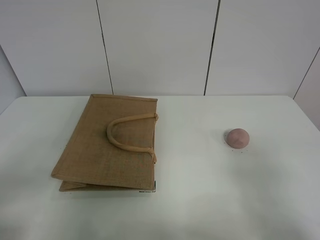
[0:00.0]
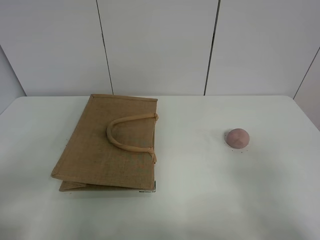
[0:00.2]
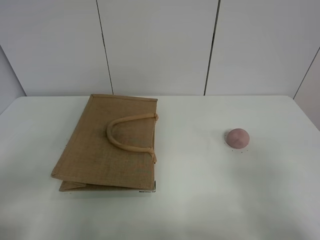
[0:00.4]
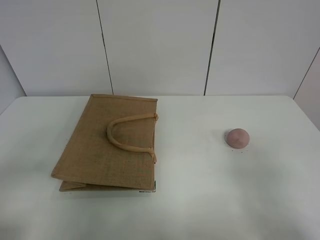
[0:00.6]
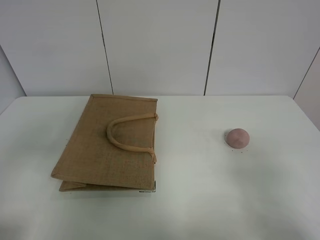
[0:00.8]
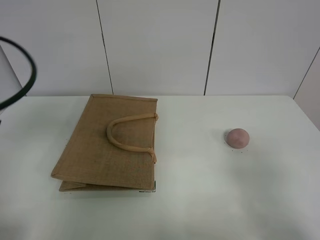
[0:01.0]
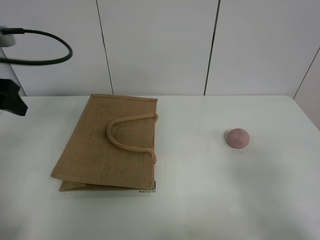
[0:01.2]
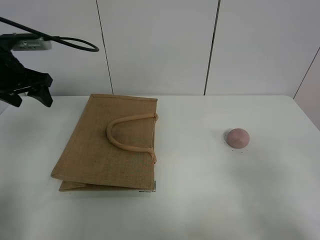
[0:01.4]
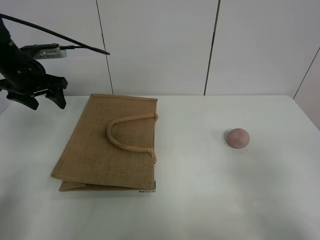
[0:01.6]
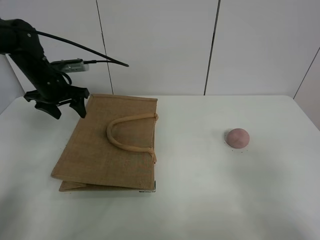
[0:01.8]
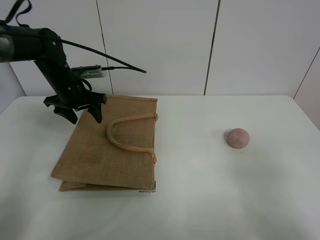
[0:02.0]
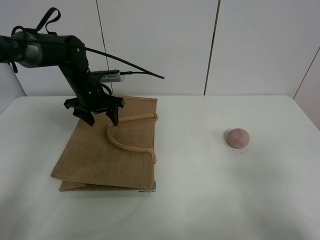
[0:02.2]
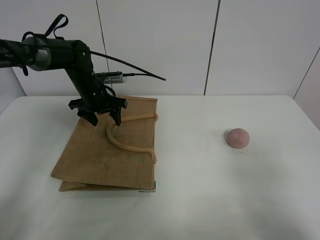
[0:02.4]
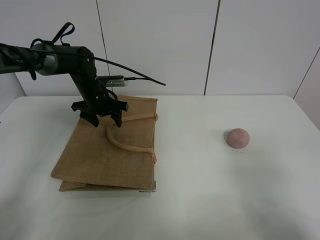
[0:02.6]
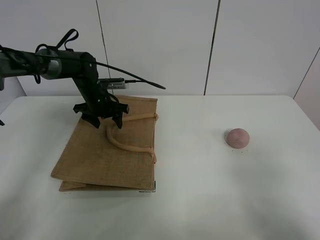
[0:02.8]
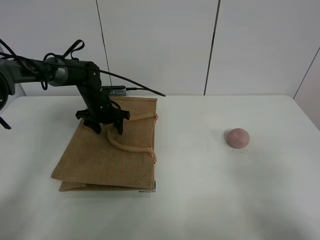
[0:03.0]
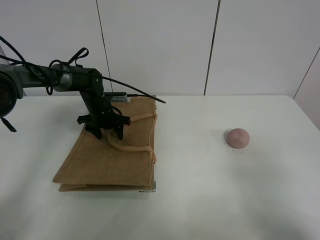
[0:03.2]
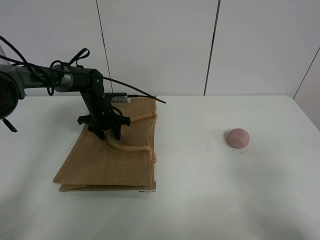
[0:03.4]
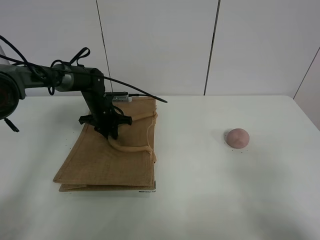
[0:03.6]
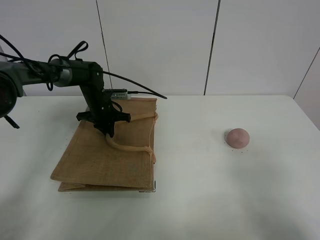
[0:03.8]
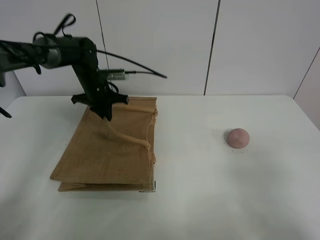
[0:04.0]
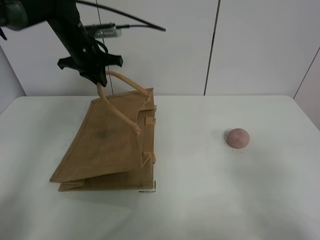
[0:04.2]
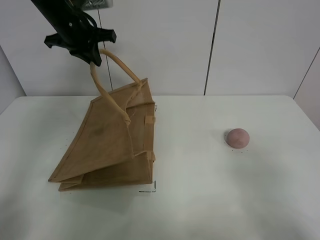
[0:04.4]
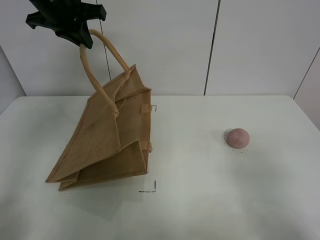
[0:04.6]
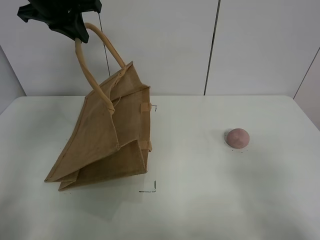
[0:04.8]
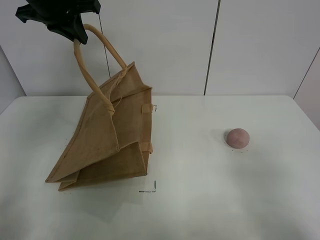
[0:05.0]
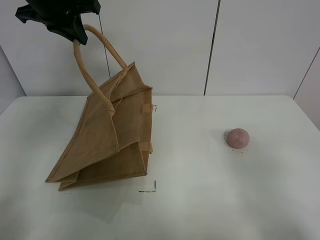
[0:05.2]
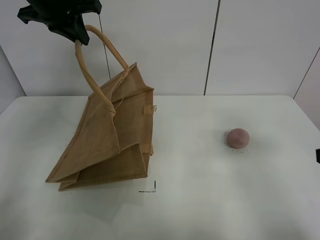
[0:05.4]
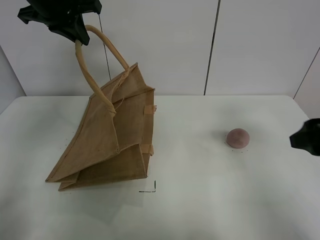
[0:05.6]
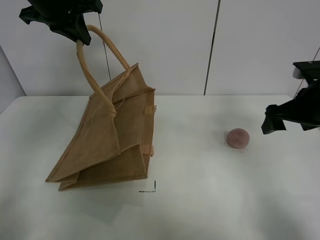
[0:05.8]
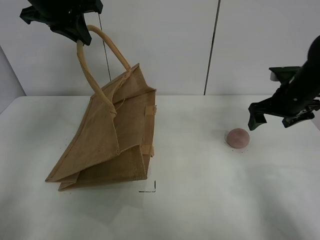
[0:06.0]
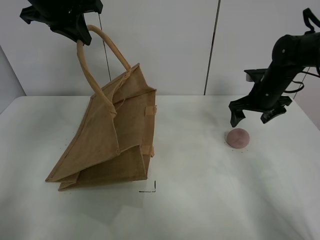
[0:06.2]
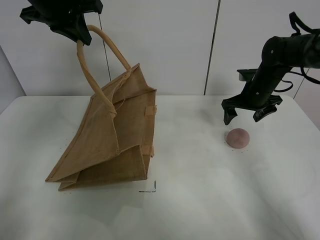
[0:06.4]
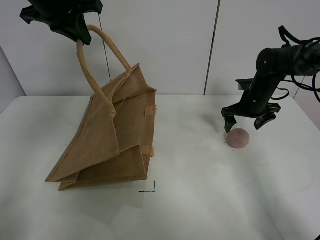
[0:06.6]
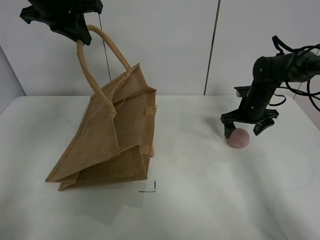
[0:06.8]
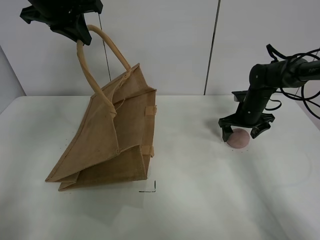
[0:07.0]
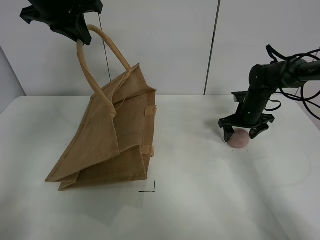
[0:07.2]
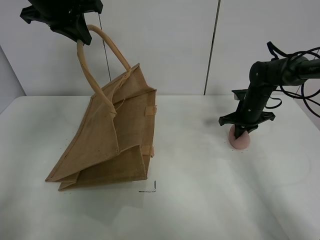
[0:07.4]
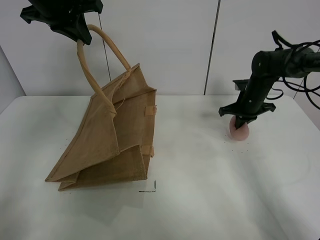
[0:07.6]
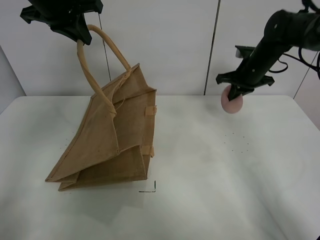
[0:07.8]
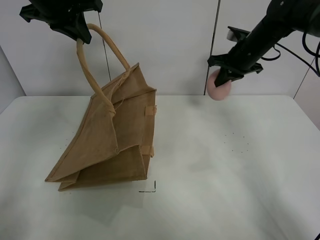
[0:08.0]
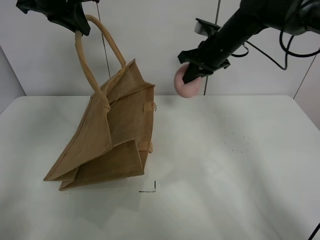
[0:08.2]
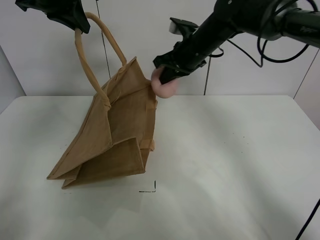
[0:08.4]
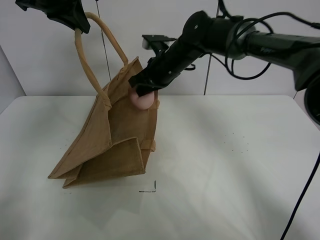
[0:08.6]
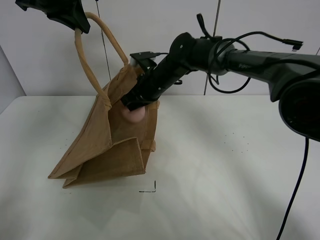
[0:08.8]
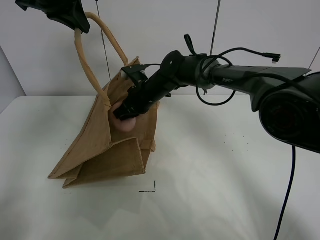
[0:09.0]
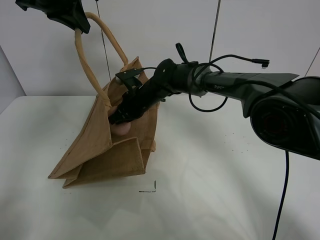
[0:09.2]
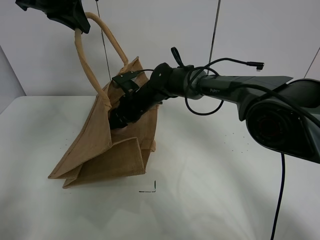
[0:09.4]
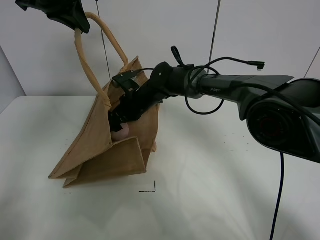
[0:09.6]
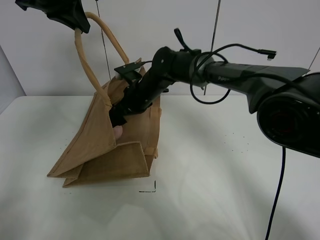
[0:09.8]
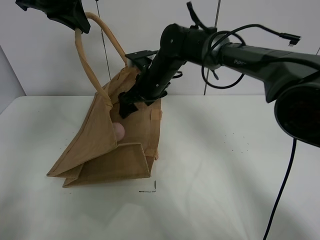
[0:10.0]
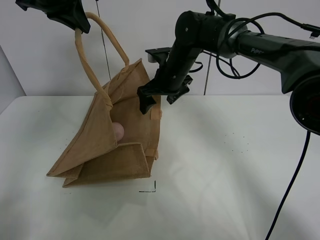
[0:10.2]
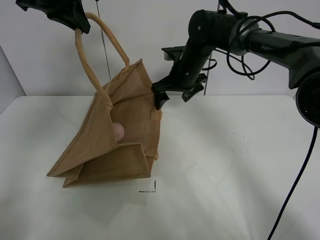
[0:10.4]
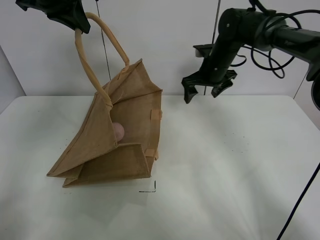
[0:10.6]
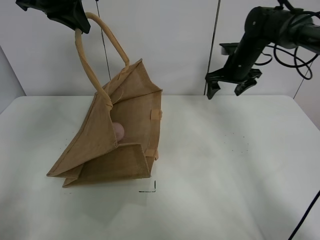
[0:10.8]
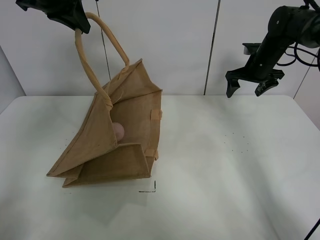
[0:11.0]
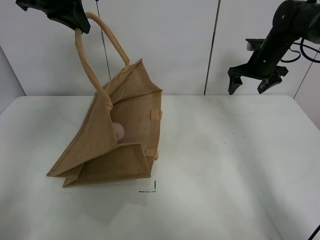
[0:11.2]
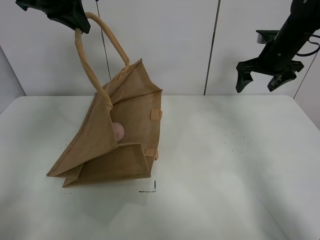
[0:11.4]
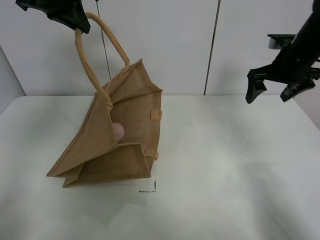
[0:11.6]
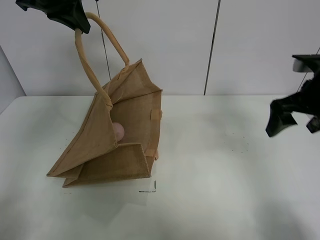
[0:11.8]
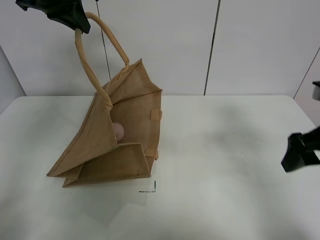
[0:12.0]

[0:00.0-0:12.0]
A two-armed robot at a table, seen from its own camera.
Task of the whole recording: open the brown linen bag and put the peach in the bag.
Step, 0:00.0 to 0:05.0: Lift the handbag with left gripper.
Step, 0:05.2 to 0:07.4: Grasp the peach with right gripper.
Step, 0:07.6 to 0:10.4: Place the peach in the handbag with right gripper.
0:00.0 to 0:01.6: The left gripper shifts some 40 cm forward.
0:01.6 to 0:03.0: The left gripper shifts roughly 20 cm downward, to the right and forward.
0:03.0 to 0:04.4: The left gripper shifts approximately 25 cm upward, and closes up.
0:04.4 to 0:06.0: The right gripper is displaced forward by some 35 cm, while the left gripper goes roughly 5 cm upward.
0:06.0 to 0:07.6: The right gripper travels forward and downward by roughly 10 cm, and closes up.
0:07.6 to 0:09.0: The right gripper moves to the left, roughly 30 cm.
0:09.0 to 0:10.4: The right gripper shifts about 10 cm to the right and upward, and opens.
0:10.4 to 0:12.0: The right gripper moves backward and to the right, approximately 30 cm.

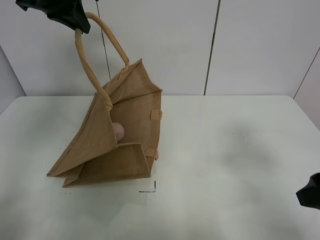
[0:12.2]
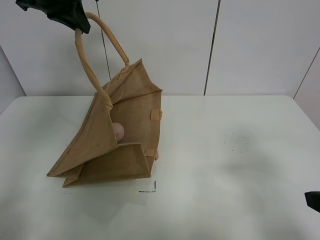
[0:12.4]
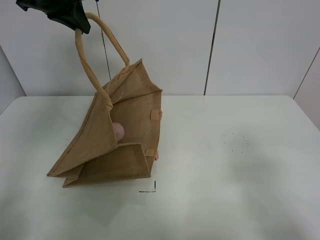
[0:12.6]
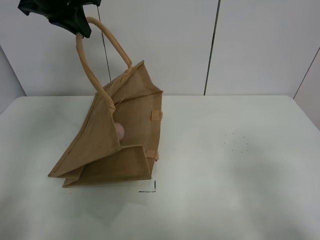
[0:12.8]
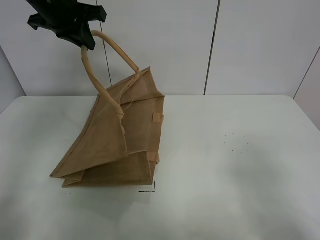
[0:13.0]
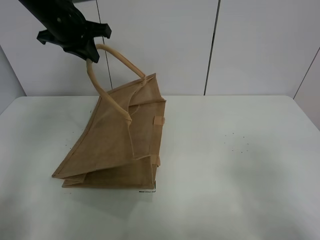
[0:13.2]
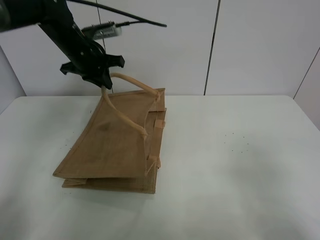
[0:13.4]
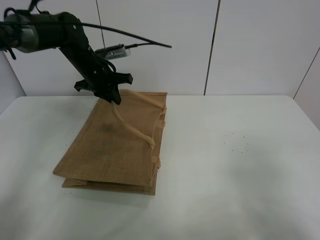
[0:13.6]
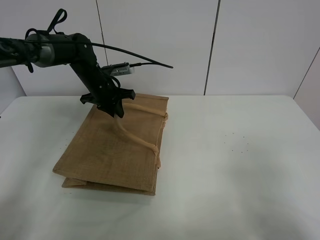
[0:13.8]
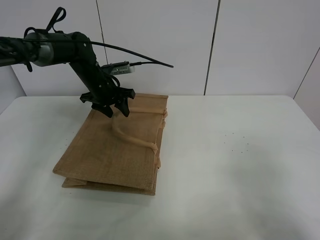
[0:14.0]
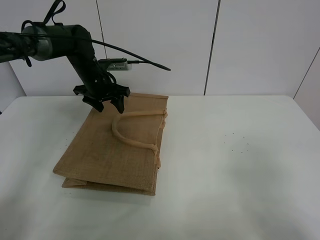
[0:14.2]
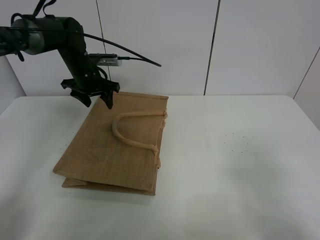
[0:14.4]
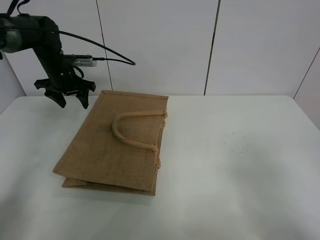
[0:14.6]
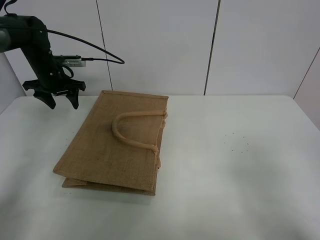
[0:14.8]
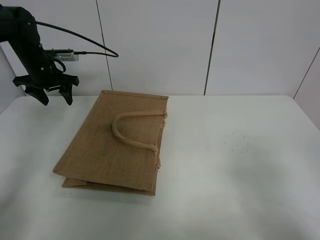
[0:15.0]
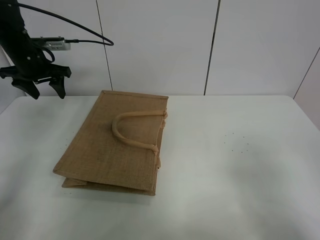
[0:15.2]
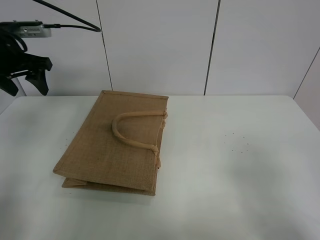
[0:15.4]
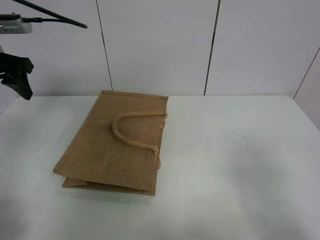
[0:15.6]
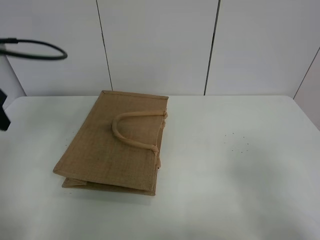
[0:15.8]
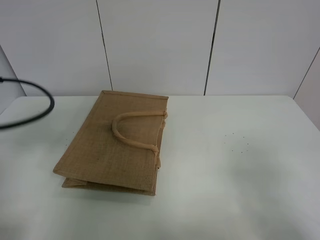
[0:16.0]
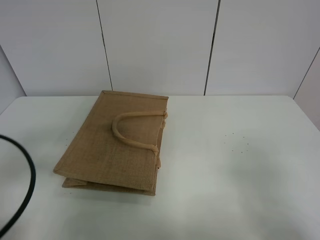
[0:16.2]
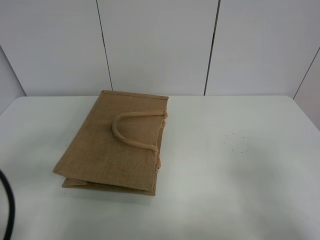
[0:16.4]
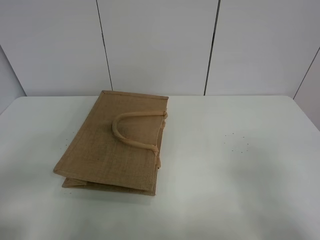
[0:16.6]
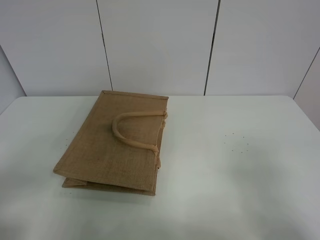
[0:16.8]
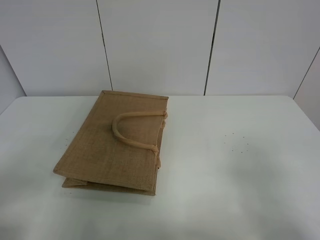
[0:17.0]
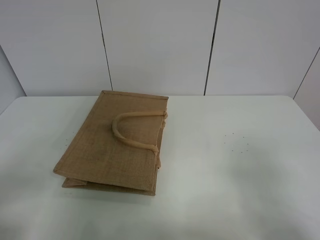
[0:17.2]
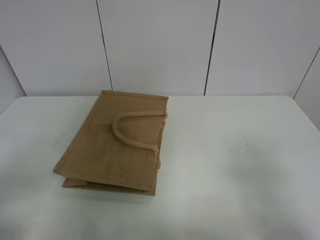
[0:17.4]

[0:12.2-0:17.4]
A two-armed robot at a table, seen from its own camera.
Task of the whole recording: open the brown linen bag and put the peach in the bag.
Step, 0:12.2 to 0:14.6: Put down the handbag with left grippe.
0:12.2 to 0:14.0: The right gripper heads backward, covering roughly 10 cm. The left gripper shifts roughly 25 cm downward, and opens its fingers.
0:14.0 to 0:15.6: The left gripper is displaced backward, upward and to the left by about 25 cm.
0:15.6 to 0:17.4: The left gripper heads backward, covering about 30 cm.
